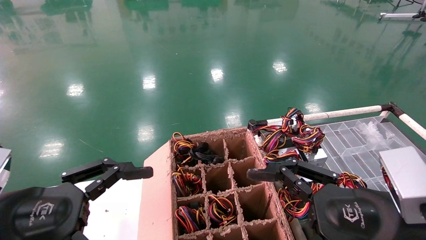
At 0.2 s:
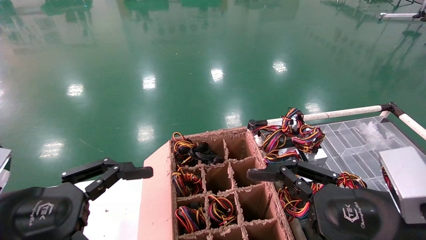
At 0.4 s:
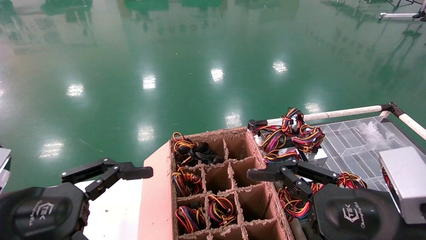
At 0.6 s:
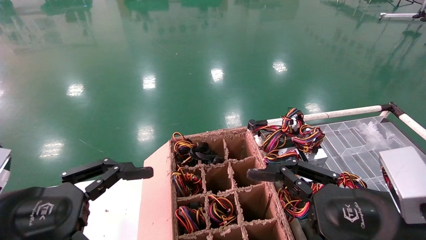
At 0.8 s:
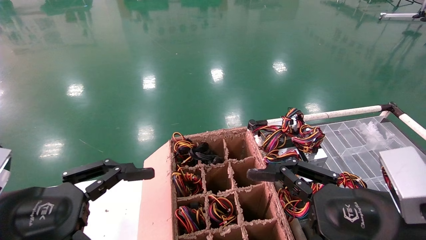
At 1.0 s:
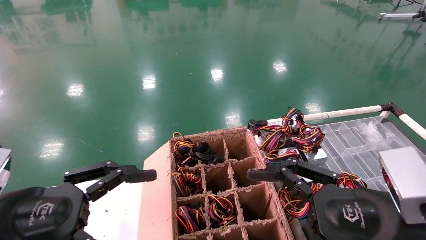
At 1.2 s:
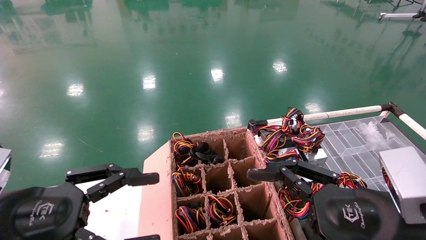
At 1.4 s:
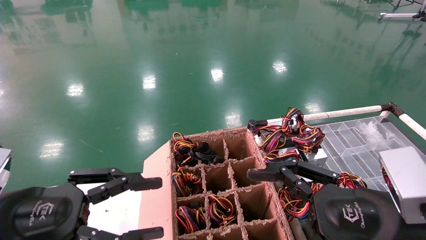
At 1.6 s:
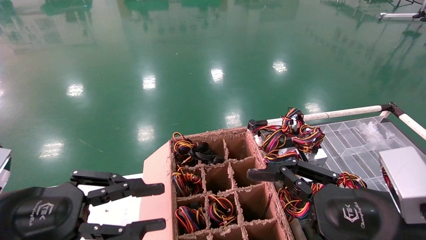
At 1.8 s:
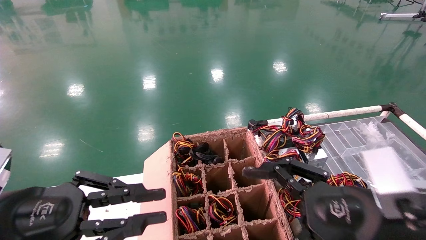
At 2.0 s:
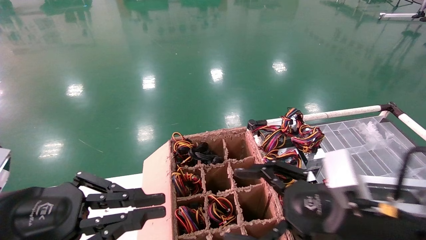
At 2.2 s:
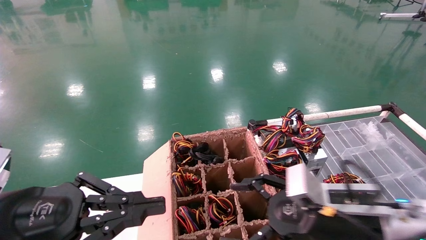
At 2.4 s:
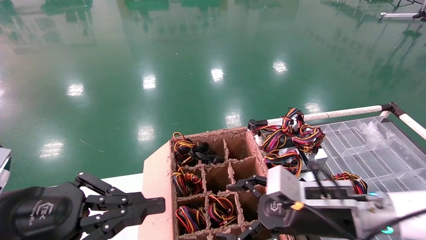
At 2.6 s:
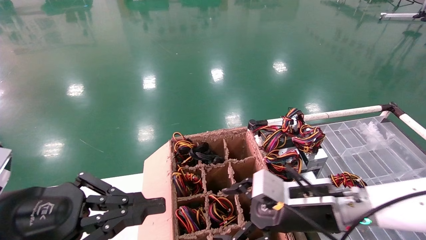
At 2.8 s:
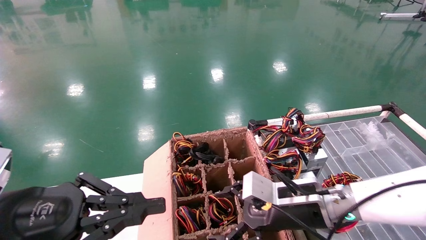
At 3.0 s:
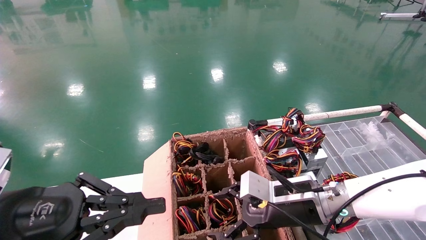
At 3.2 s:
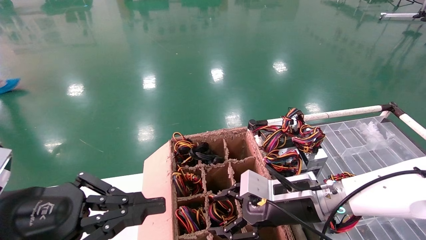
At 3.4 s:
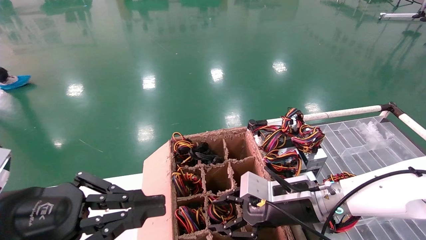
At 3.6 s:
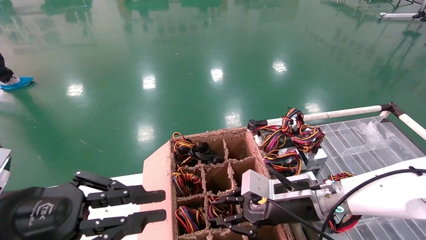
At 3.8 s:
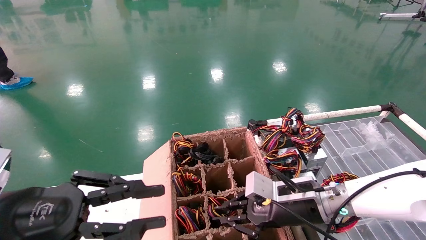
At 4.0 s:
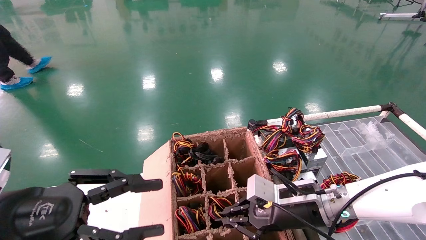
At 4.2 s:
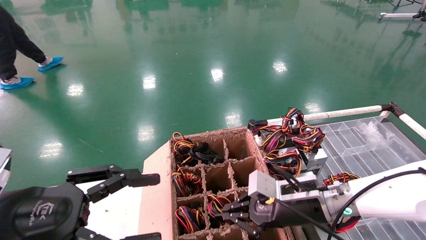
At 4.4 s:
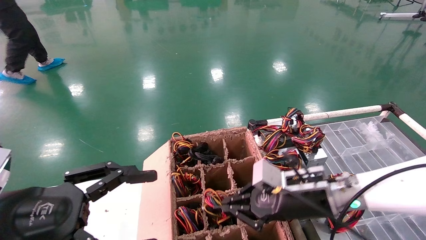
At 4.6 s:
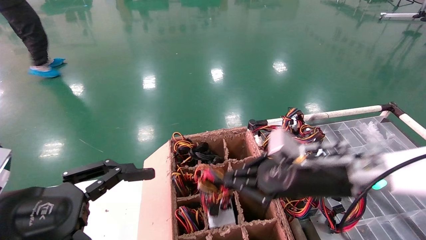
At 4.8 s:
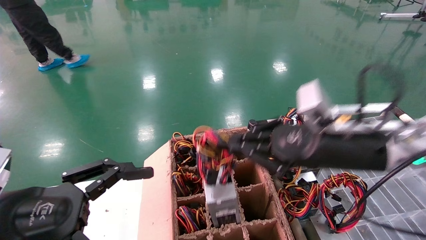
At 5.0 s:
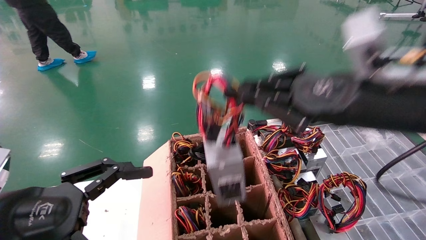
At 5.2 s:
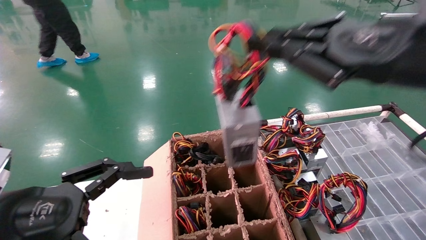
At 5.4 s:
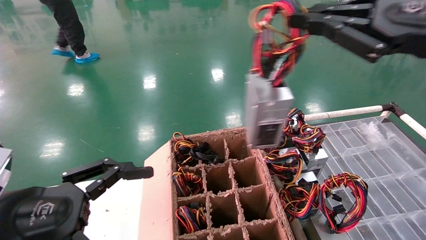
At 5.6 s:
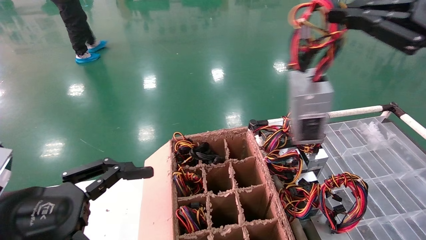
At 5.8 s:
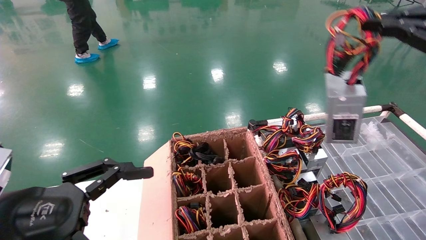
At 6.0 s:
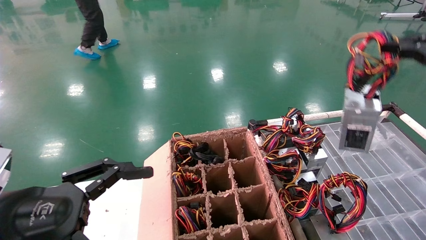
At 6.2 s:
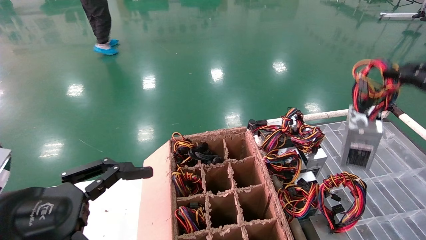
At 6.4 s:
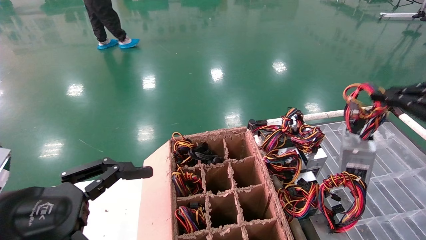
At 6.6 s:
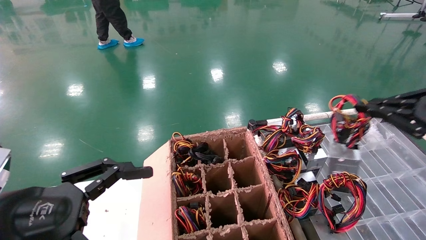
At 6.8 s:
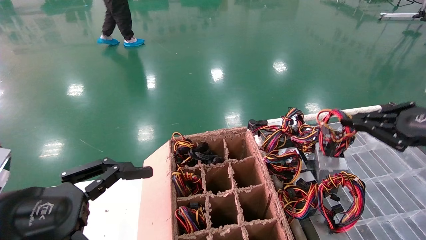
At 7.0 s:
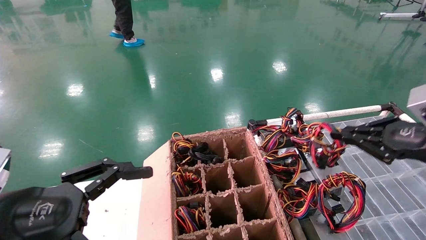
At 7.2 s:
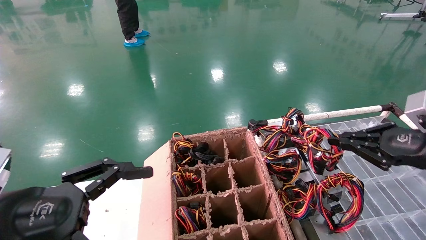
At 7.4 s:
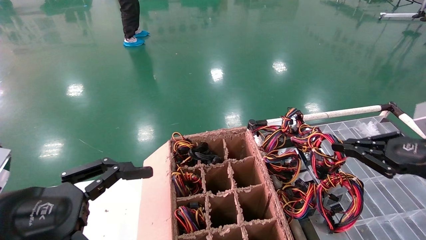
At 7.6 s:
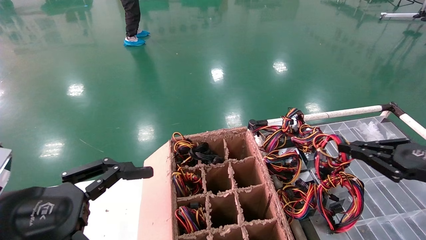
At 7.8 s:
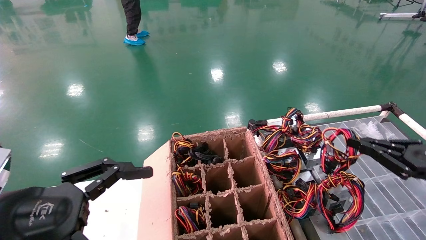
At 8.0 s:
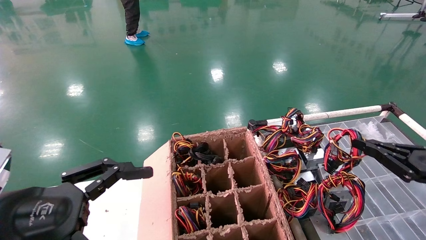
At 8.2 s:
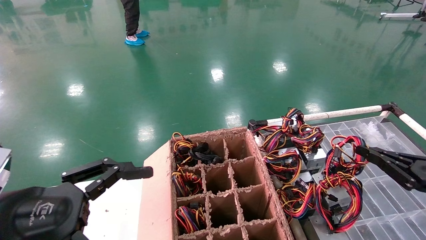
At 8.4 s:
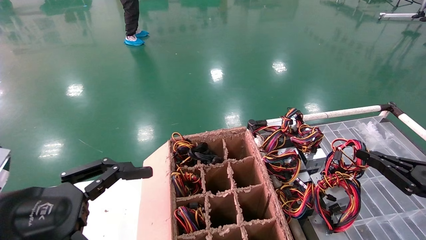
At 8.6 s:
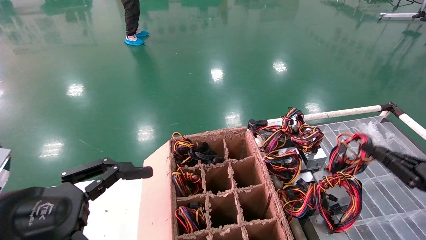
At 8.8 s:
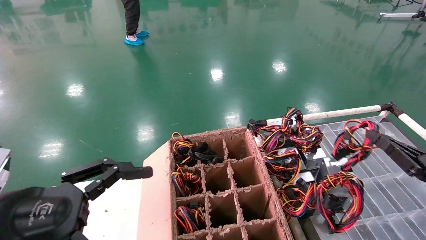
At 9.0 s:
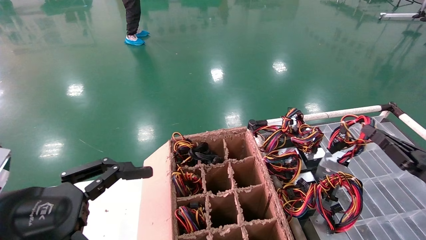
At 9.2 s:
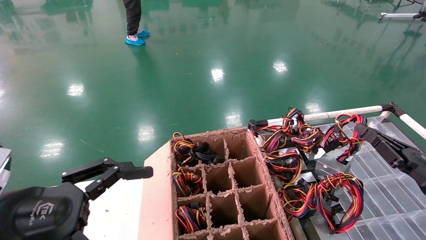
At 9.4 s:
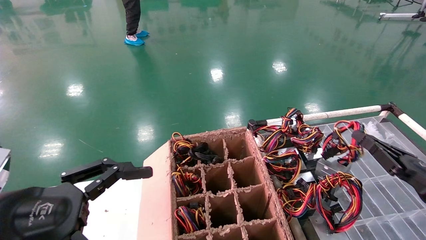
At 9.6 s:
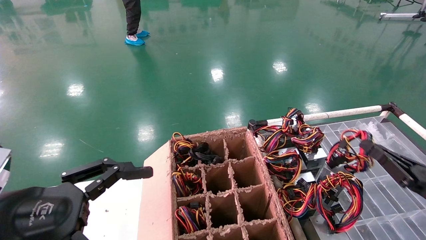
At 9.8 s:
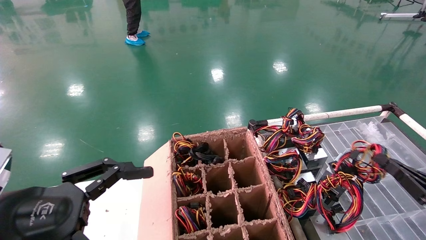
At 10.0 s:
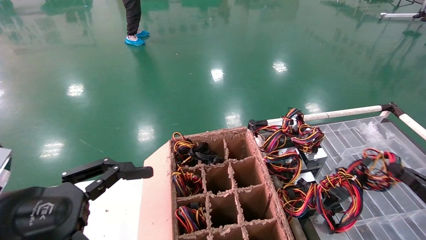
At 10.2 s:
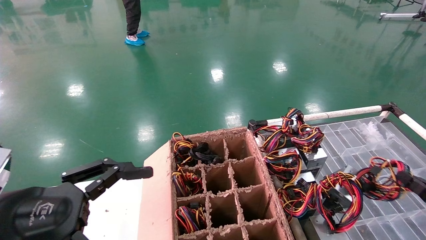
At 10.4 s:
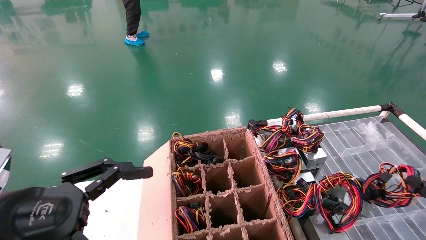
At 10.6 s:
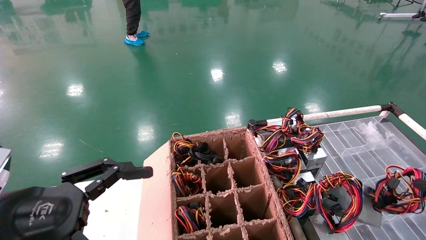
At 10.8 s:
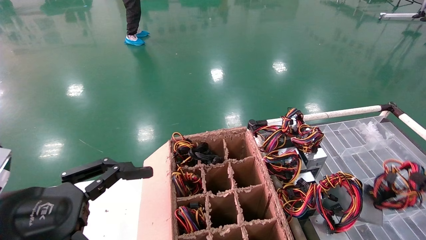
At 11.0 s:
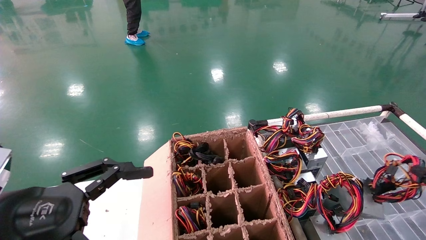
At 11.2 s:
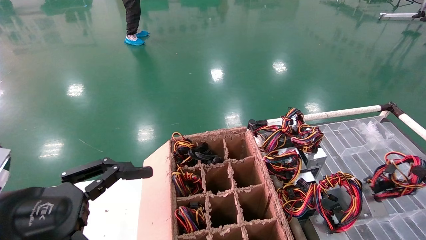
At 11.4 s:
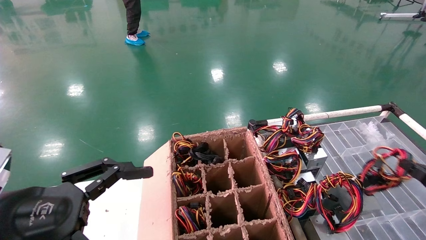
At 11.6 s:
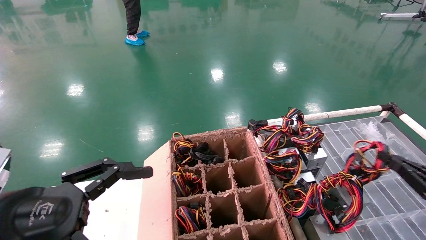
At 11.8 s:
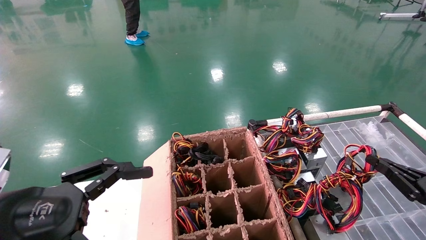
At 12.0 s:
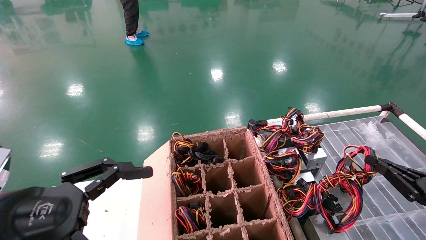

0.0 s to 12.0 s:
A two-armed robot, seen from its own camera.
Step, 2.4 to 4.0 s: Grab and lift the power supply from the large box.
0.0 to 1.6 s: The left gripper closes its fingers.
1.6 to 3.0 s: The left gripper closes up, while the right gripper goes some 20 cm forward, downward and to the left.
3.0 to 4.4 s: The left gripper opens up. Meanwhile the right gripper closes its fingers.
4.4 to 6.0 s: The right gripper goes approximately 35 cm to the right, upward and backward.
6.0 to 7.6 s: The right gripper heads downward, covering roughly 15 cm.
7.6 to 9.0 s: The right gripper moves downward, about 10 cm.
9.0 to 10.4 s: The right gripper heads backward, downward and to the right, covering roughly 10 cm.
10.4 to 12.0 s: The right gripper goes approximately 5 cm forward.

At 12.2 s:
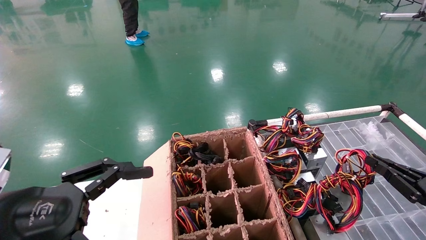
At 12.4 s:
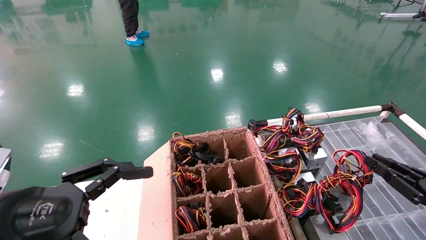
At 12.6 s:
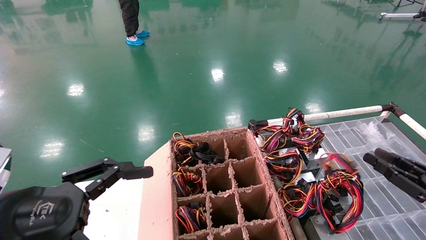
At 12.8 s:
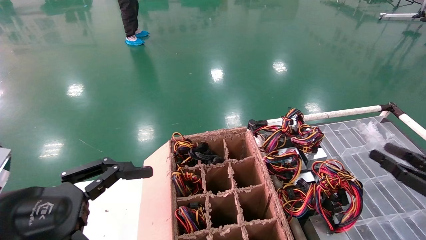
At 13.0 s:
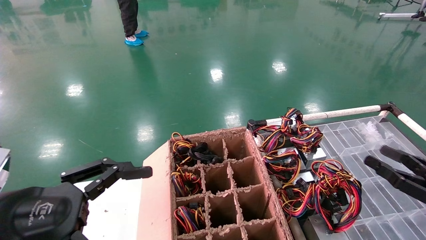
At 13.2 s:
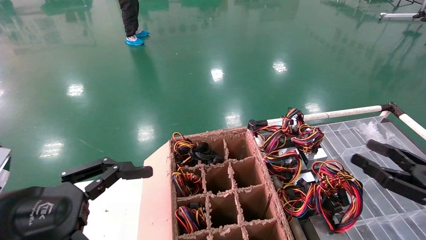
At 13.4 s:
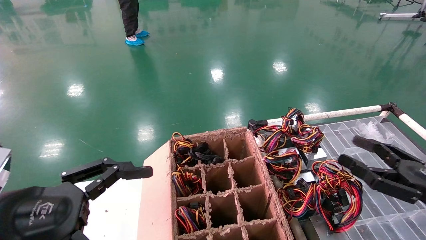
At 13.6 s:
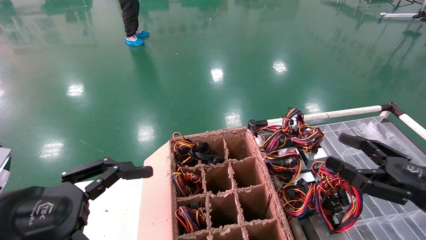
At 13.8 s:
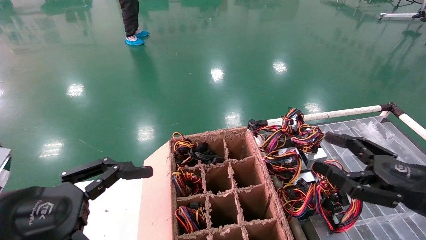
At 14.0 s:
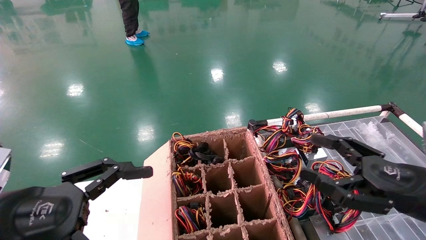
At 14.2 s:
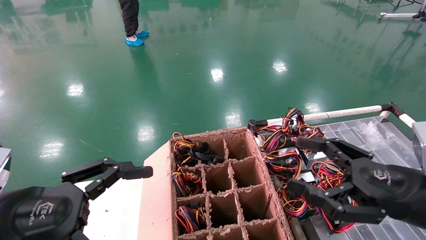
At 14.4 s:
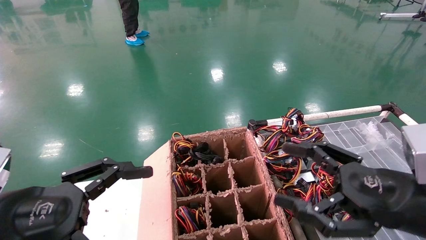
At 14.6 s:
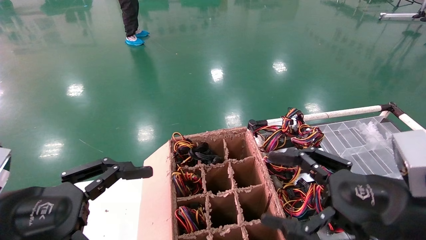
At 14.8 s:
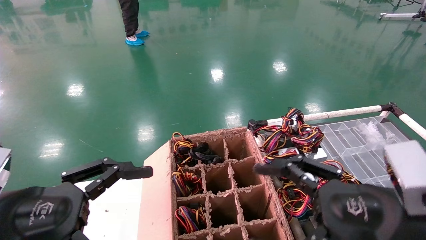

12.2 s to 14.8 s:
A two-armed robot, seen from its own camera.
12.2 to 13.4 s: The right gripper is displaced to the left and upward by roughly 10 cm, and opens up.
13.4 to 14.8 s: The right gripper moves to the left, some 15 cm.
